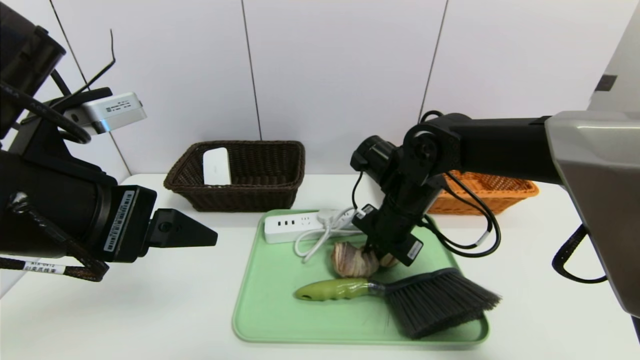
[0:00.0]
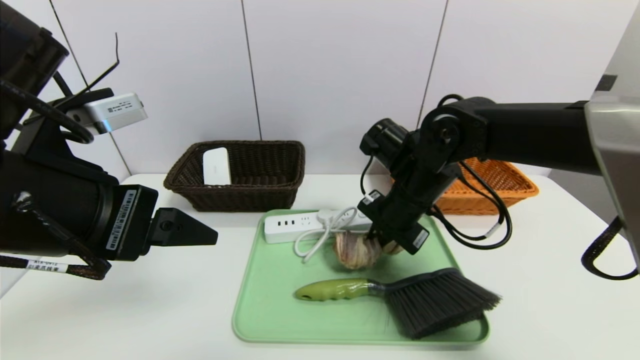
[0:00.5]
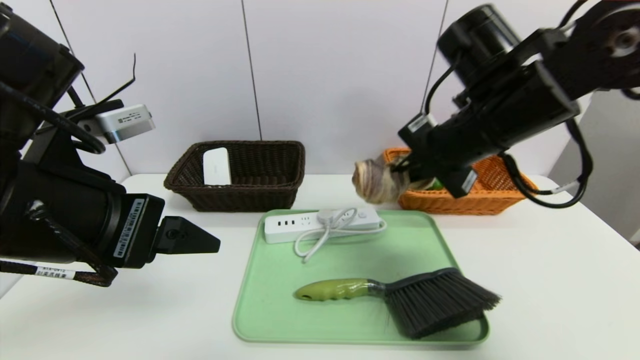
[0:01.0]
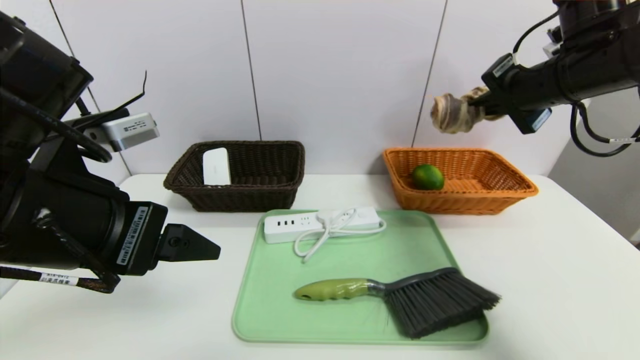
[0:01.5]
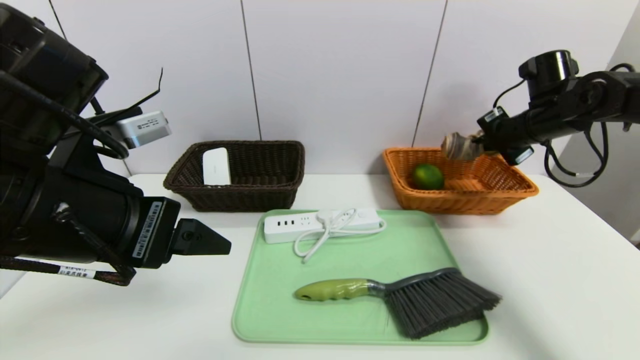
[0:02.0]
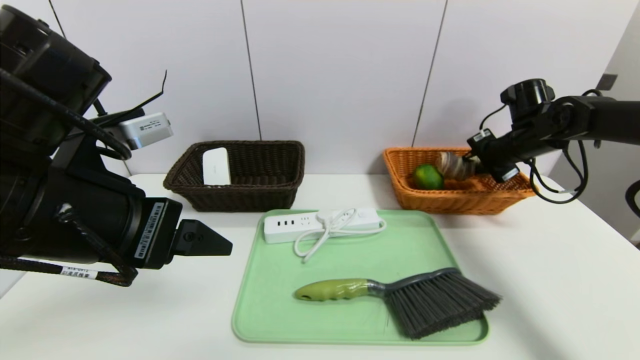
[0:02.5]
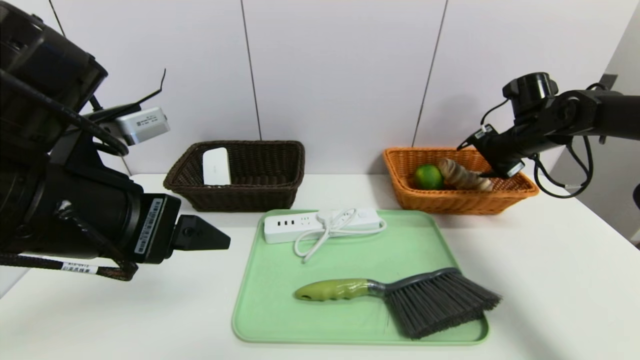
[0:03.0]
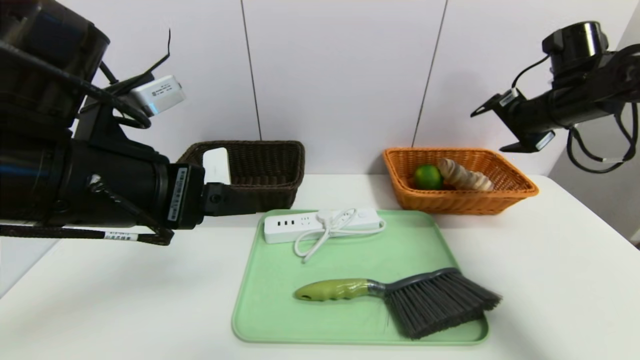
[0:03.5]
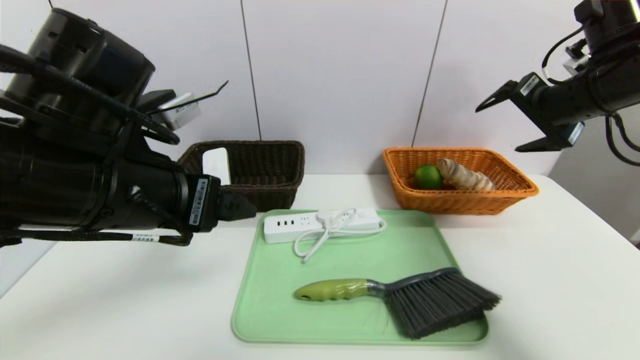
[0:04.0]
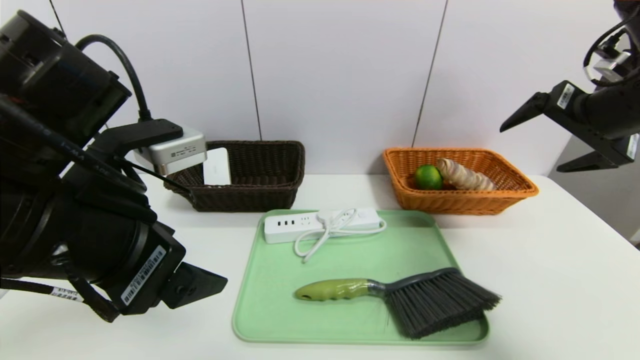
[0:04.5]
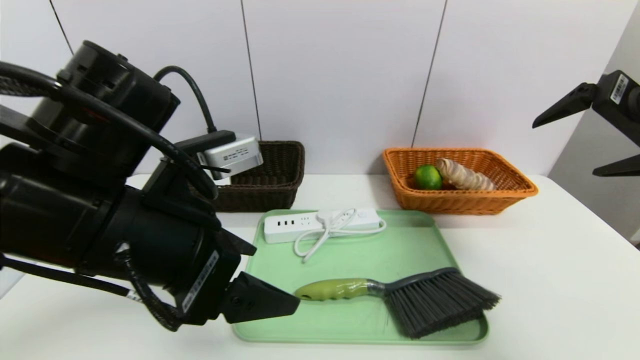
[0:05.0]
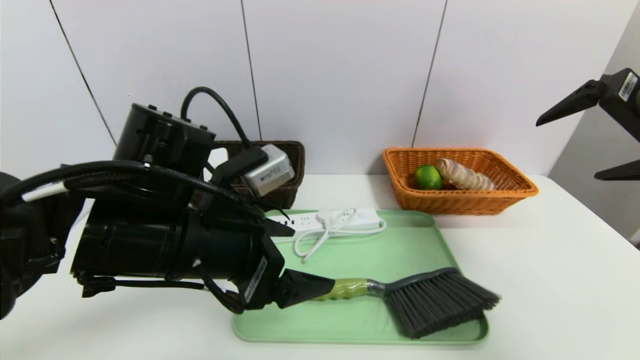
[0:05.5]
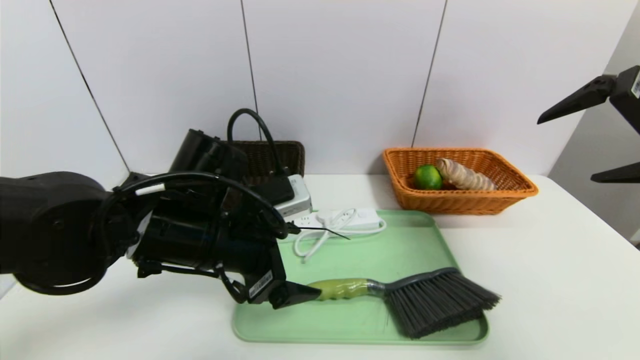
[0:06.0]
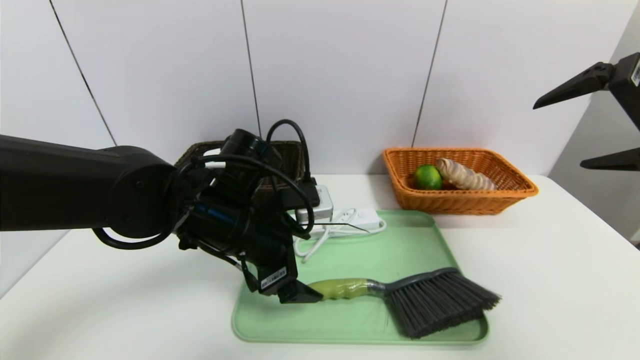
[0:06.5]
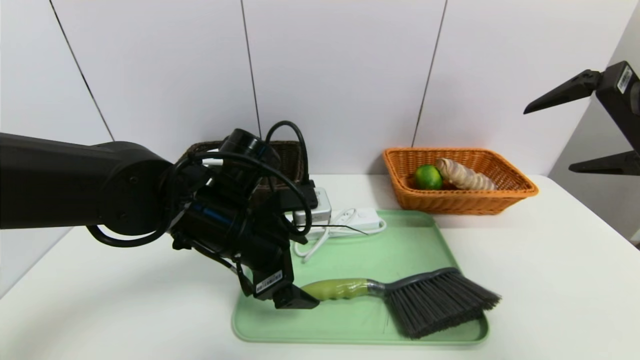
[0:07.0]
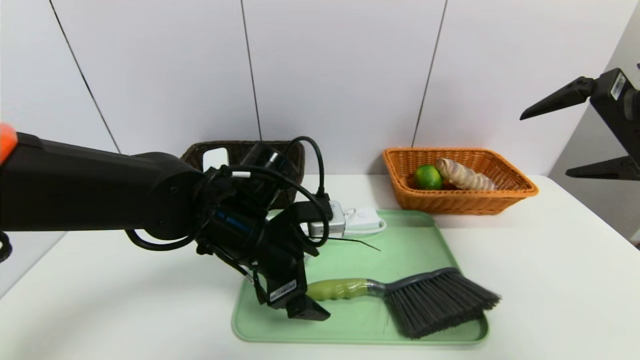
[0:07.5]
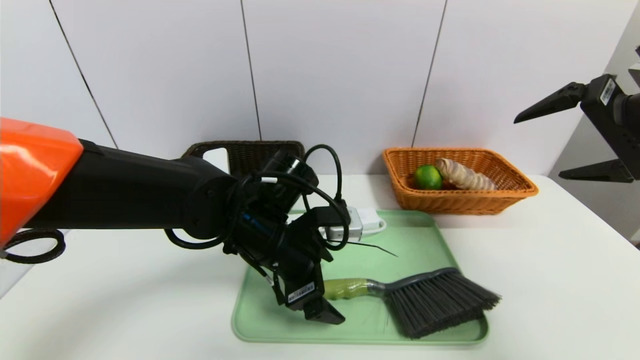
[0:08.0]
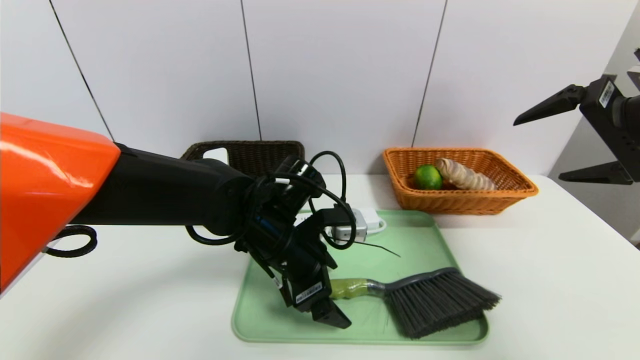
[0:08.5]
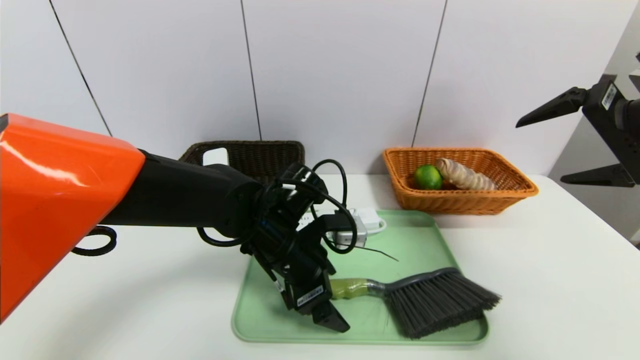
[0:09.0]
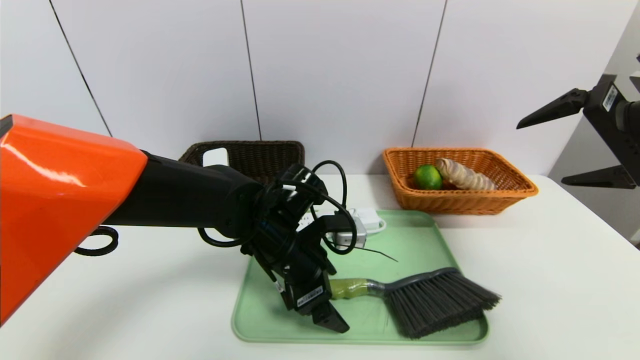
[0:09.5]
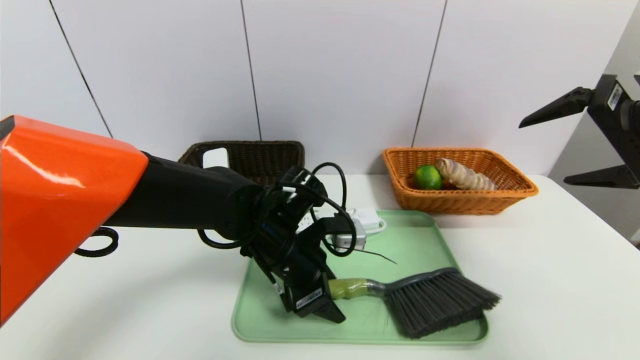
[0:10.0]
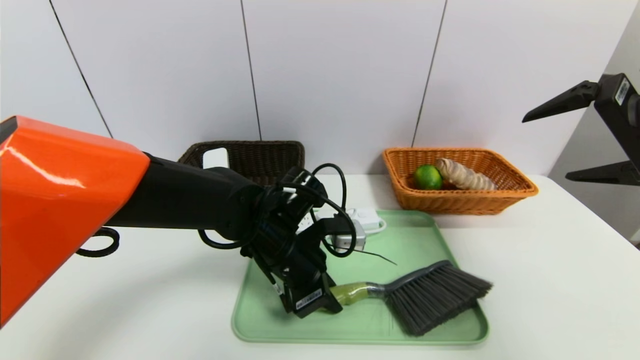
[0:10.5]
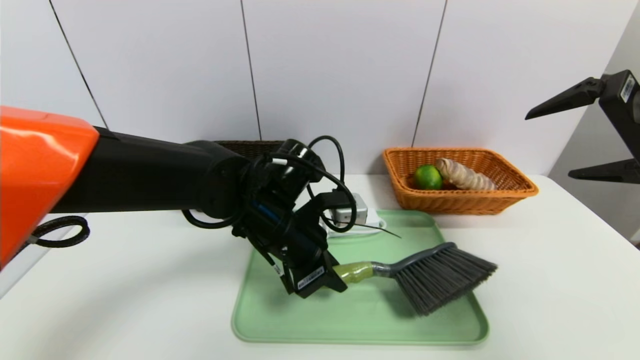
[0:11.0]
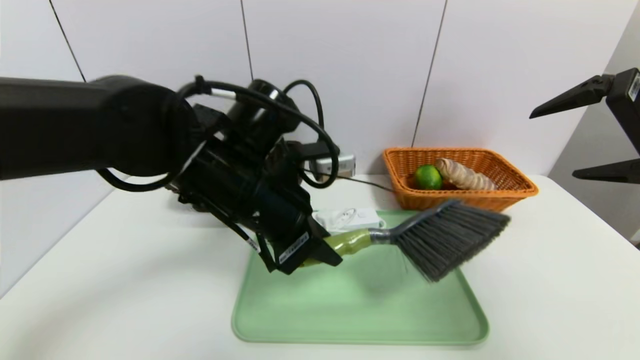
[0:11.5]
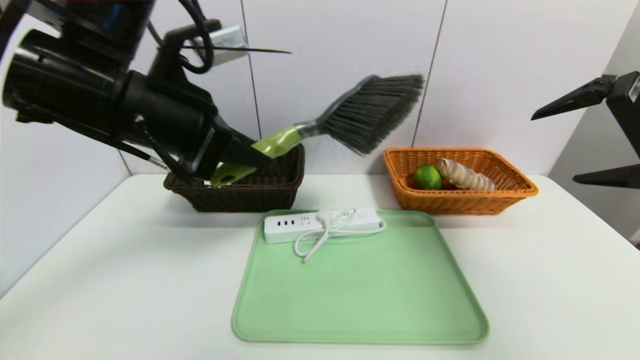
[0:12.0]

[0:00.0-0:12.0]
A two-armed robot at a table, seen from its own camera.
Task of the whole recording: place the food in the right basket with the right gripper, and place the non food items in the left basket with the left gripper.
Step, 0:00.0 to 0:03.0: Grasp the long bread and put it in the right basket.
0:00.0 to 0:02.0: The right gripper travels to the right and forward by approximately 25 cm.
0:02.0 to 0:04.0: The right gripper goes about 15 cm backward and upward, and opens its fingers.
0:04.0 to 0:06.0: The right gripper heads backward, covering approximately 10 cm, while the left gripper travels downward and forward by approximately 10 cm.
0:06.0 to 0:08.0: The left gripper shifts some 5 cm to the right.
0:08.0 to 0:10.0: The left gripper closes up.
0:10.0 to 0:12.0: The left gripper travels upward and to the left by approximately 25 cm, and closes its fingers.

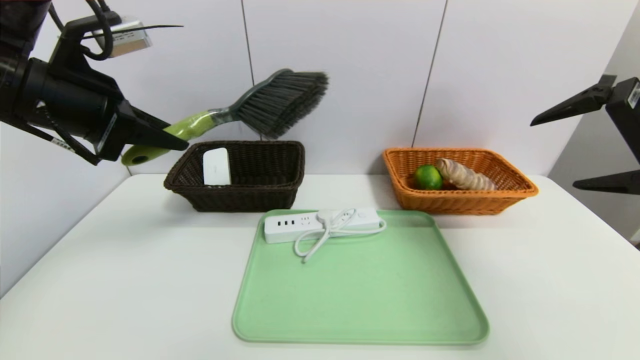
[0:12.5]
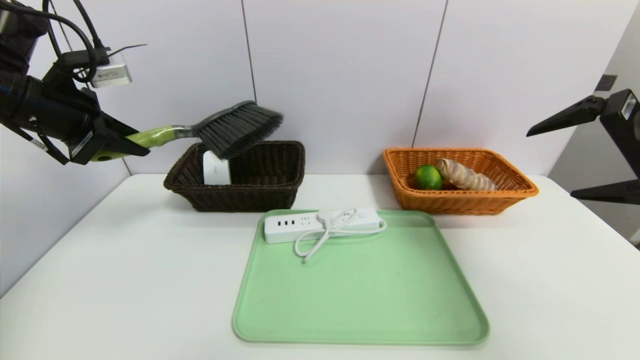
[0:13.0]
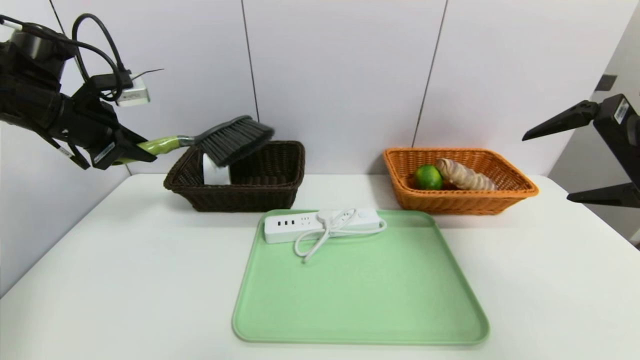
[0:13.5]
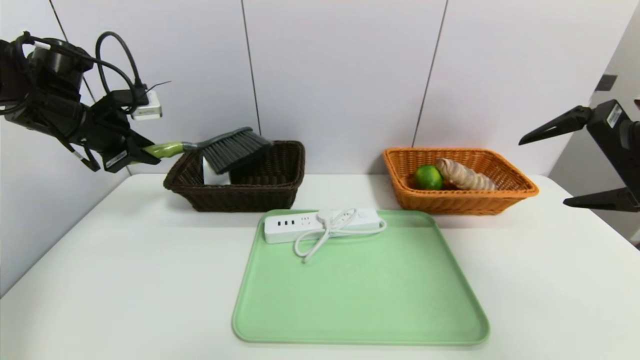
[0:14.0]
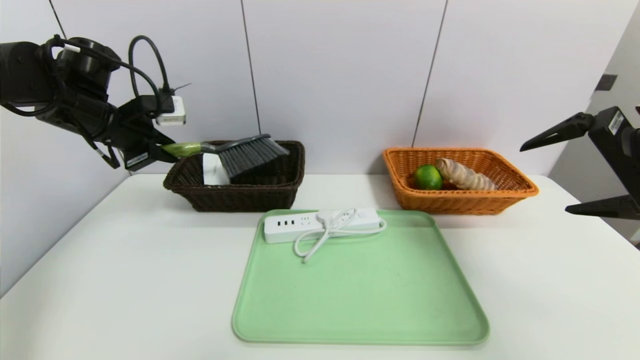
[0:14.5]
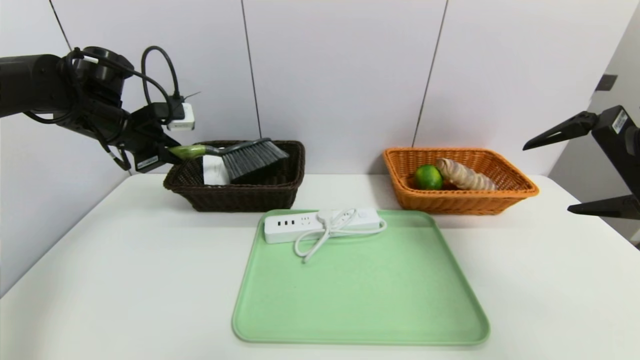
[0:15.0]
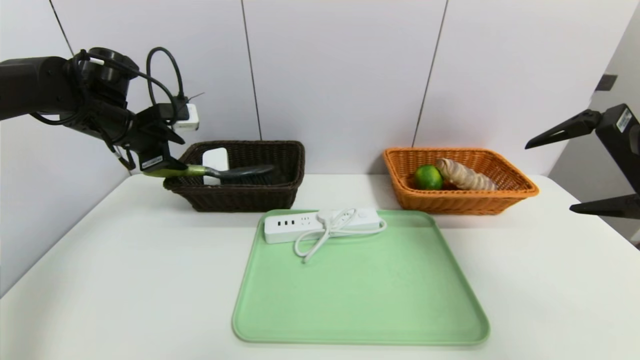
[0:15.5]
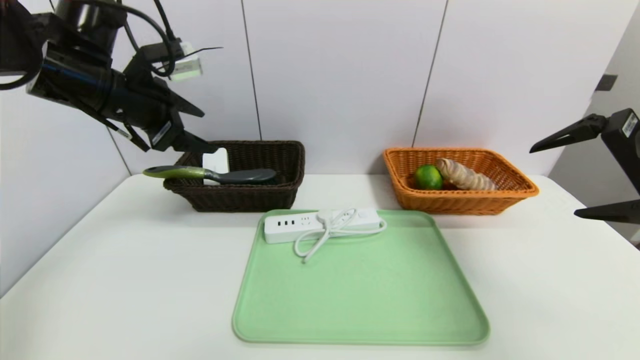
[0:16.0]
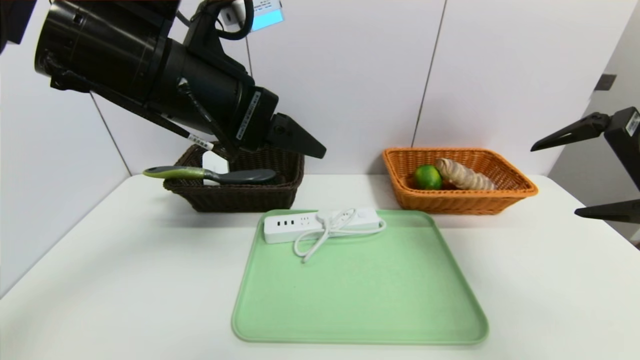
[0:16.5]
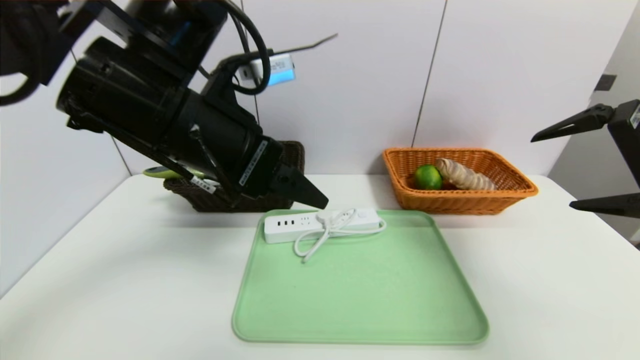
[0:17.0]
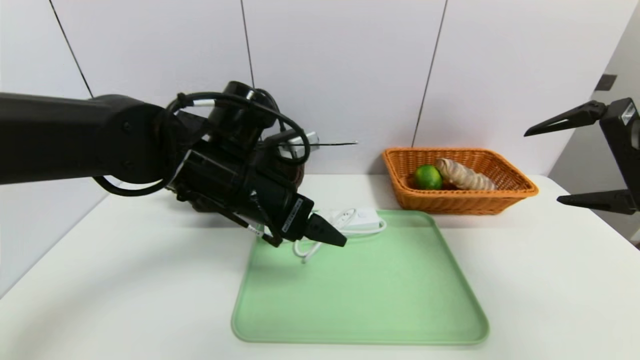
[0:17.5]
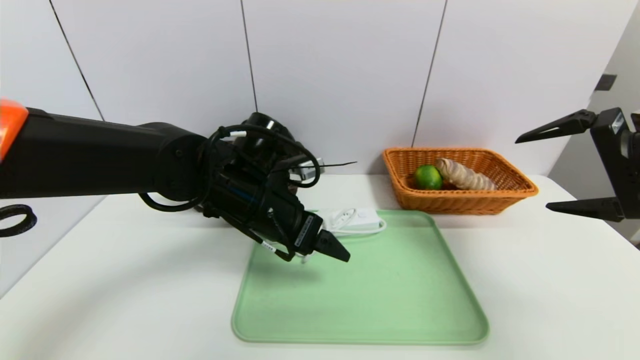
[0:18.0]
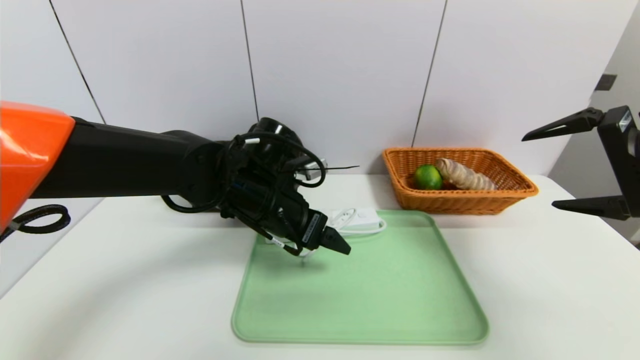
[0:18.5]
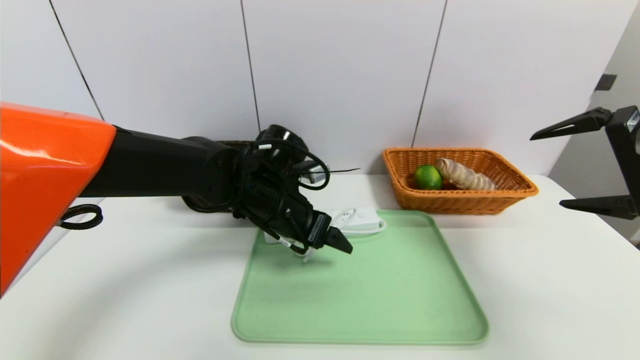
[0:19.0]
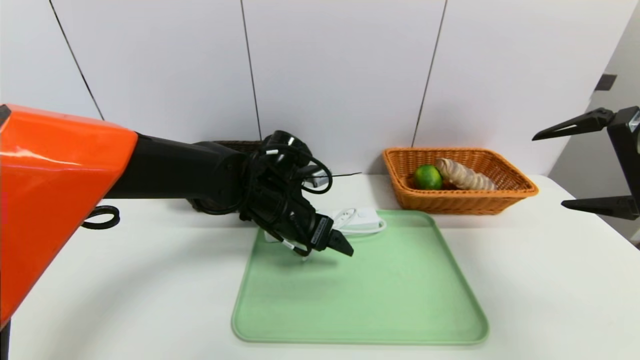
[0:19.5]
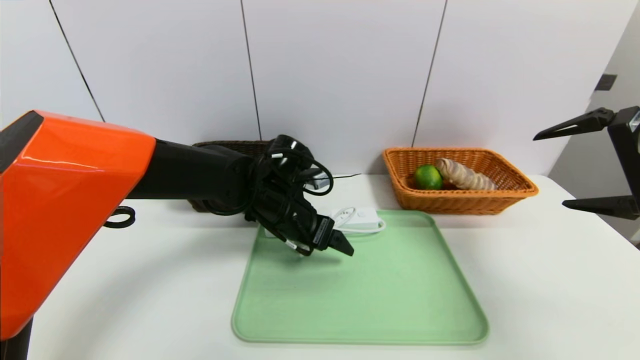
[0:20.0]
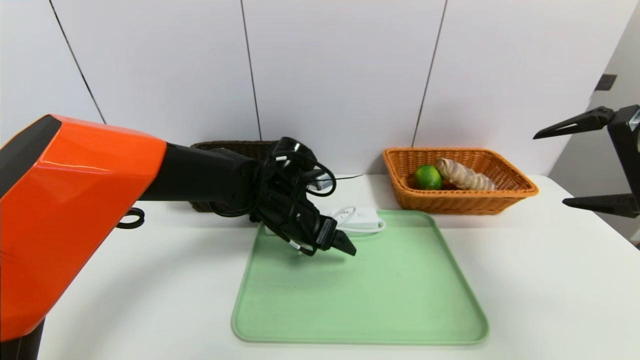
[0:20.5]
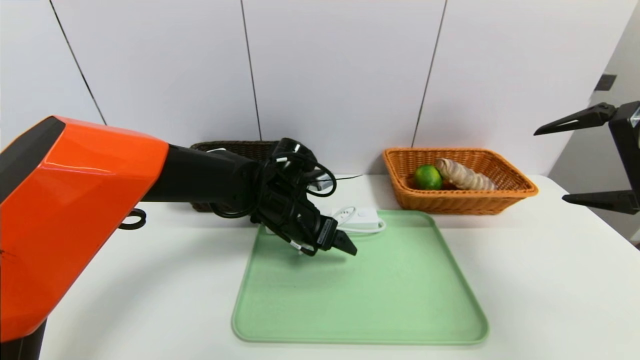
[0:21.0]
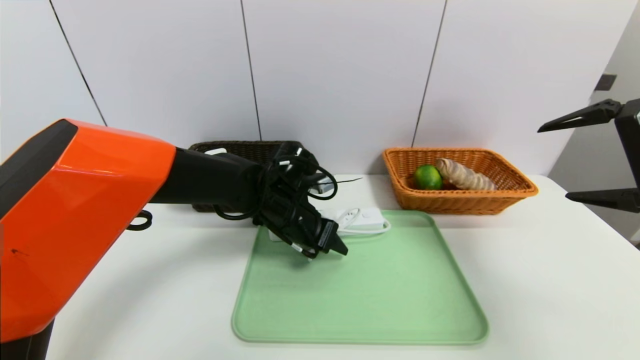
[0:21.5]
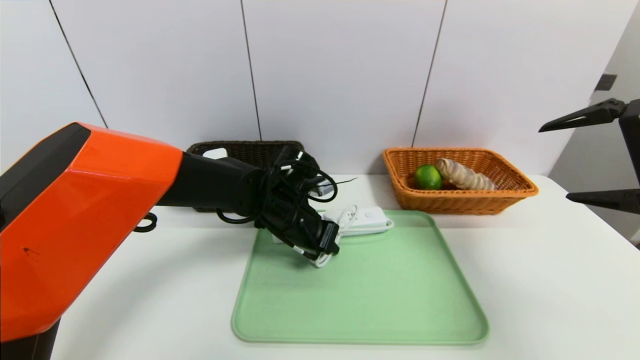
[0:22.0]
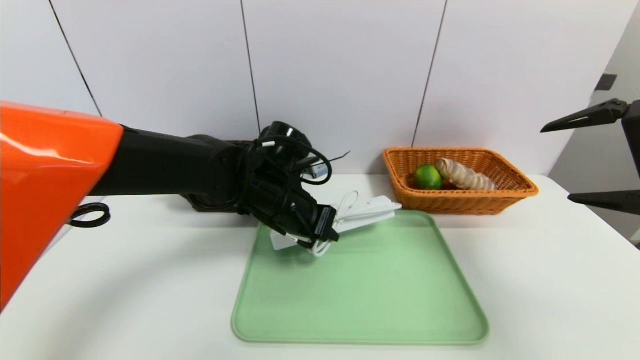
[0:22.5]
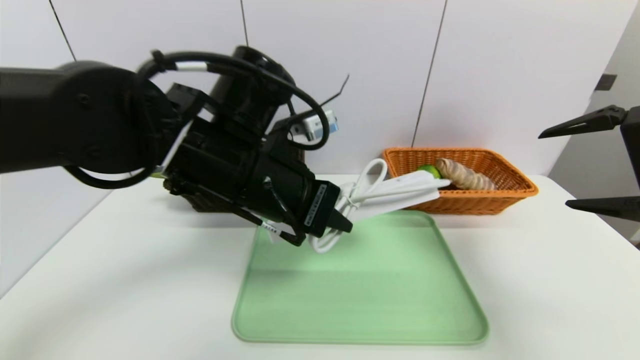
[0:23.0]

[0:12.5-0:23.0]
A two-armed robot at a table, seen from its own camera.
Task of the whole recording: place the food in the right basket with the right gripper, and place the non food items in the left basket with the left gripper.
Step, 0:12.5 to 0:15.5: Grasp the brush and put it in the left basket.
0:12.5 to 0:14.5: The left gripper moves forward, downward and to the left, roughly 15 cm.
0:14.5 to 0:16.5: The left gripper moves to the right, backward and upward, some 25 cm, and opens its fingers.
0:16.5 to 0:19.0: The left gripper travels downward and forward by some 20 cm.
0:19.0 to 0:21.0: There are only small adjustments of the grippers.
0:21.0 to 0:23.0: The left gripper shifts about 15 cm upward and backward, and closes its fingers.
